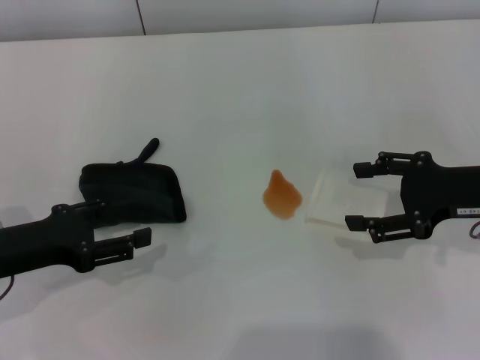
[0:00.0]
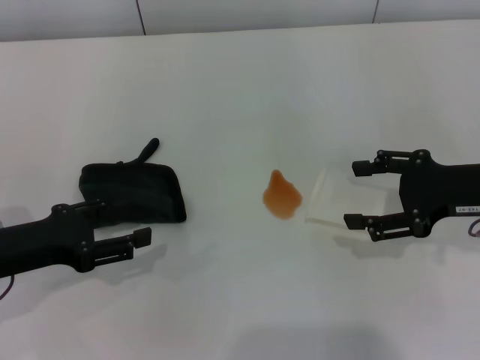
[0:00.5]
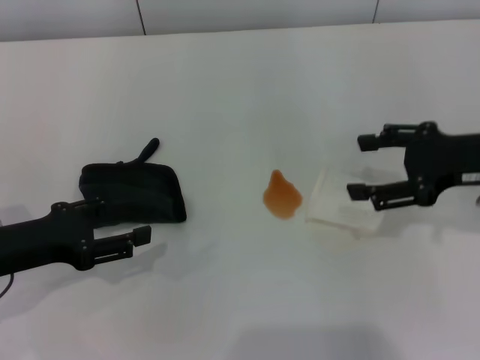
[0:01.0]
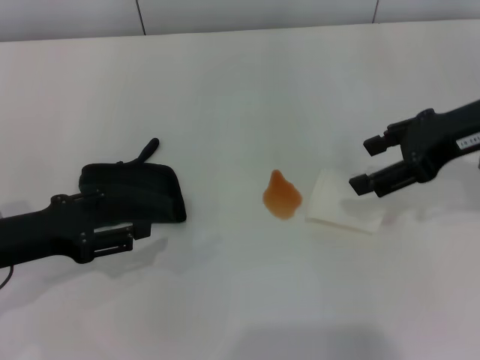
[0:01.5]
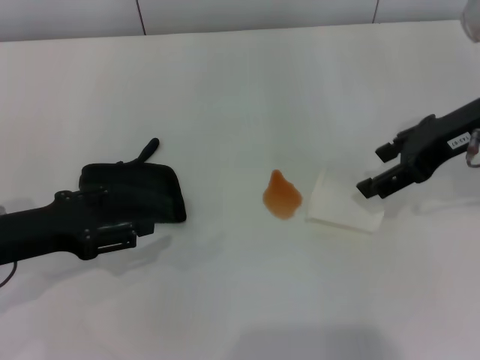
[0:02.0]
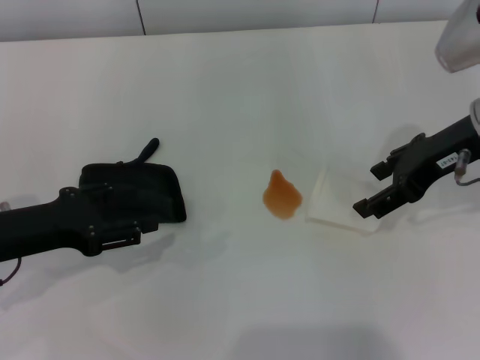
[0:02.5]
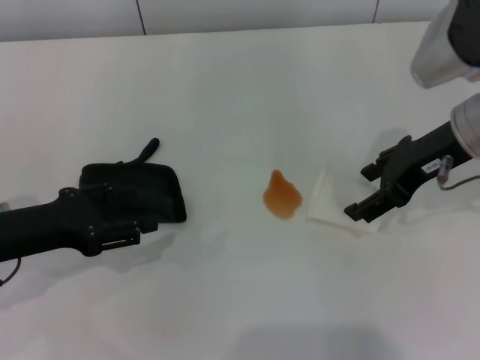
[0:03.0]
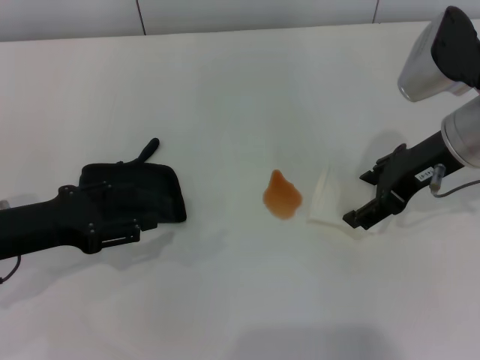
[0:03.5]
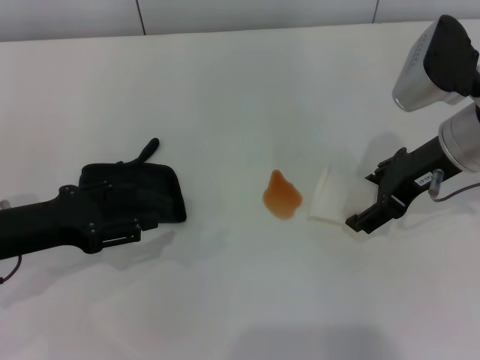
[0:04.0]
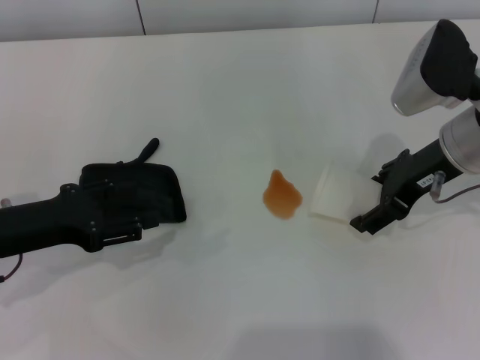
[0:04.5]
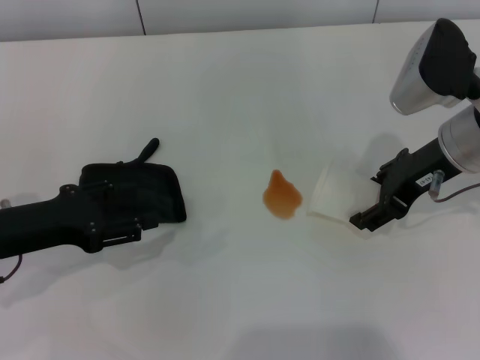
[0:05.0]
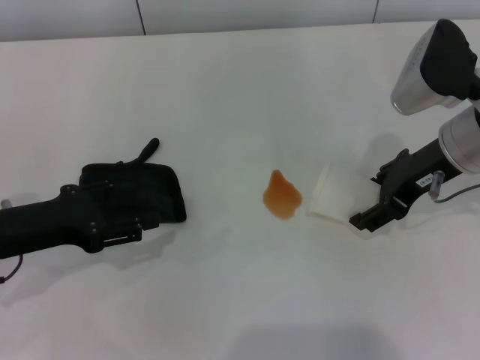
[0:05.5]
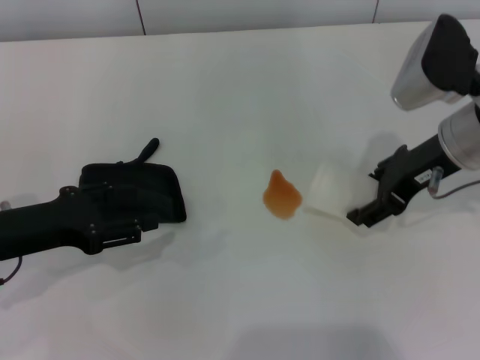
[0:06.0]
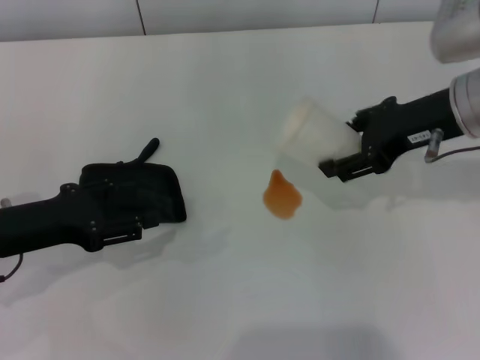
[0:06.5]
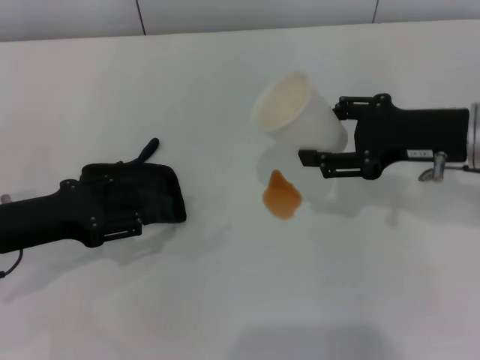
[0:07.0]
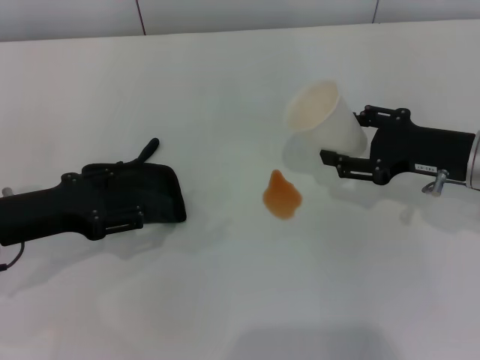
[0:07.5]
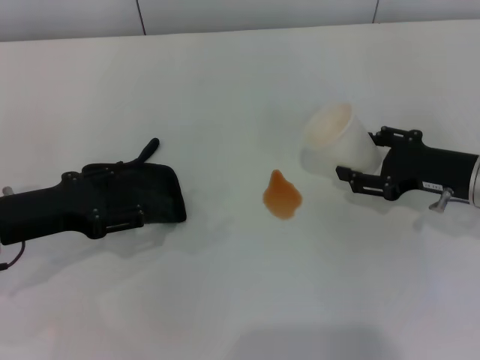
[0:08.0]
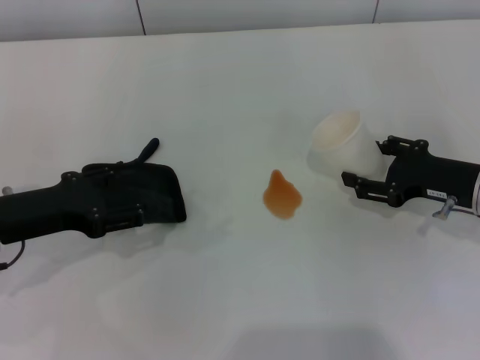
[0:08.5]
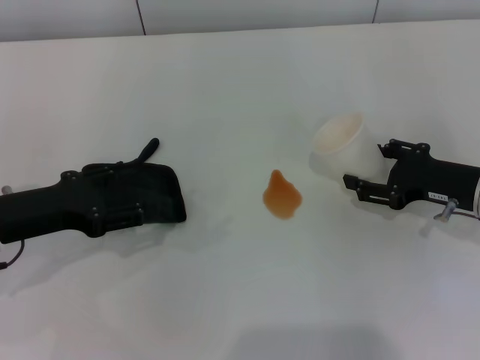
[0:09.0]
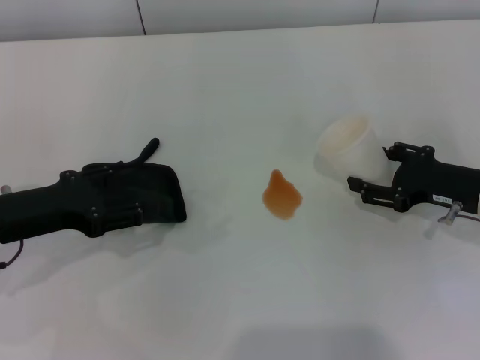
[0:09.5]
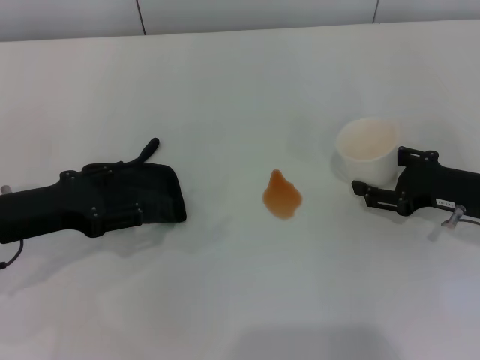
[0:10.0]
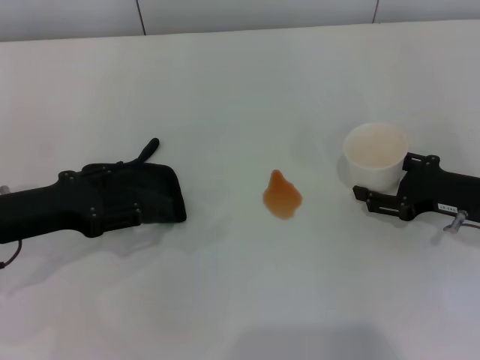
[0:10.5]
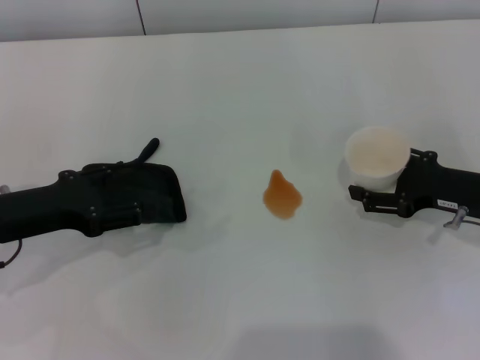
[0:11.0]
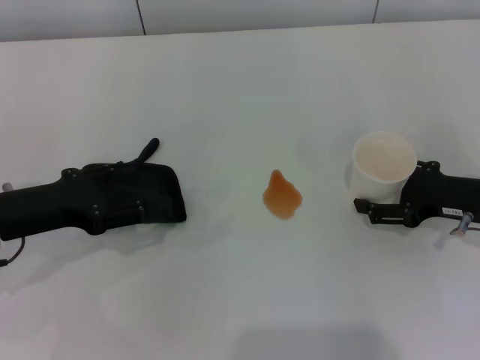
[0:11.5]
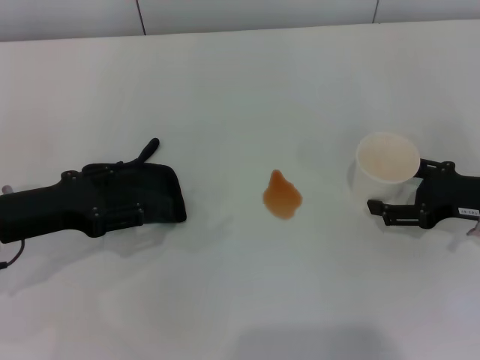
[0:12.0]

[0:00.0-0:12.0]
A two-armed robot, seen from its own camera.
Step, 0:00.0 to 0:05.0: Grasp the paper cup with the right gripper.
0:00.0 to 0:02.0: The right gripper heads upward and forward, covering approximately 10 cm.
0:02.0 to 0:04.0: The right gripper moves about 5 cm.
0:04.0 to 0:06.0: The right gripper closes its fingers.
0:06.0 to 0:08.0: The right gripper moves downward and to the right, about 10 cm.
0:08.0 to 0:10.0: The grippers move only a little.
0:10.0 to 0:12.0: The right gripper opens.

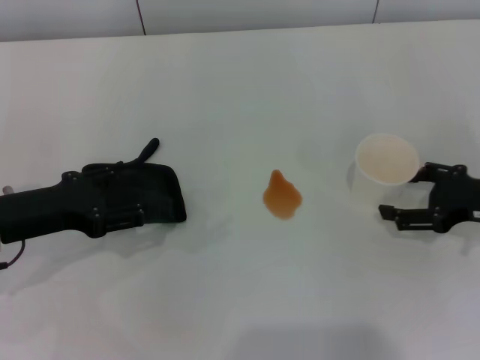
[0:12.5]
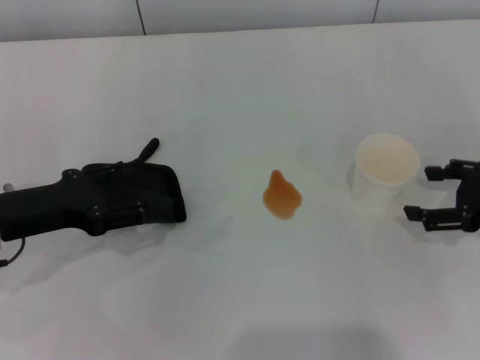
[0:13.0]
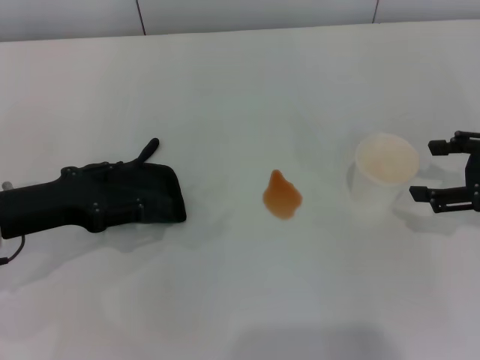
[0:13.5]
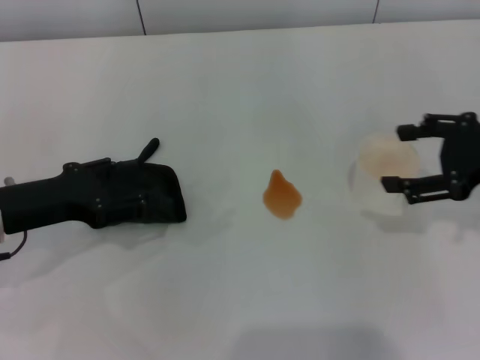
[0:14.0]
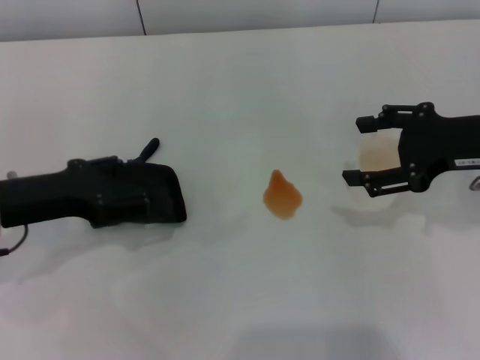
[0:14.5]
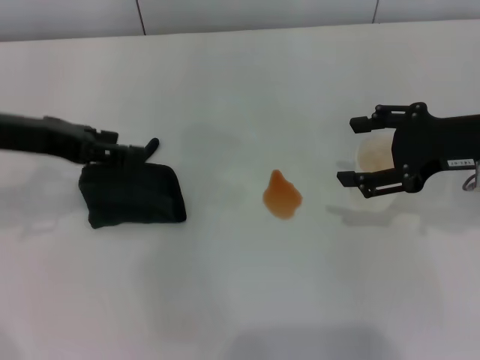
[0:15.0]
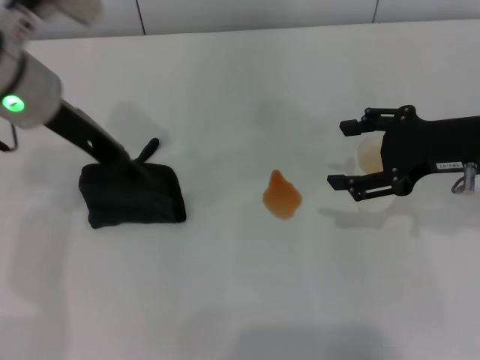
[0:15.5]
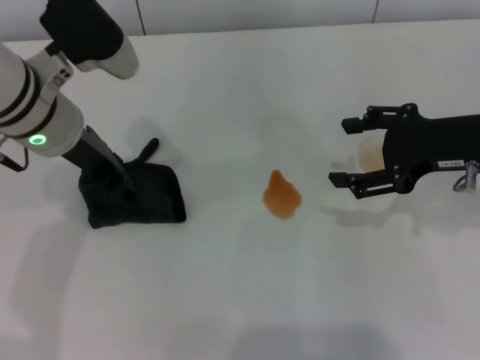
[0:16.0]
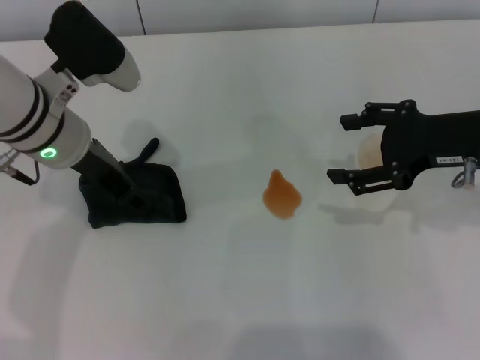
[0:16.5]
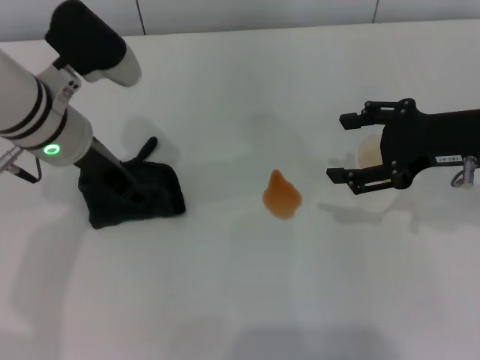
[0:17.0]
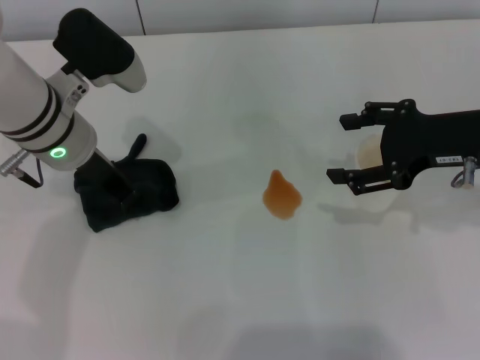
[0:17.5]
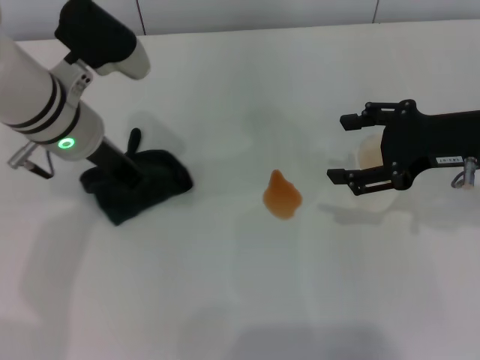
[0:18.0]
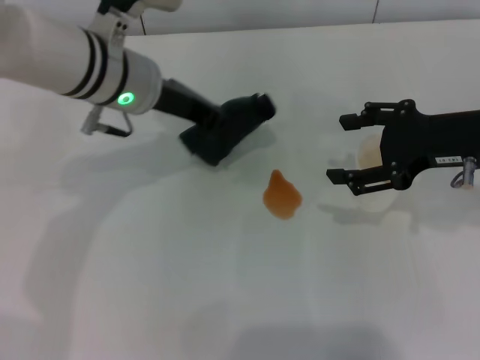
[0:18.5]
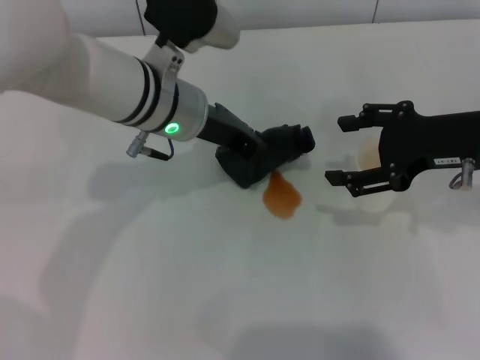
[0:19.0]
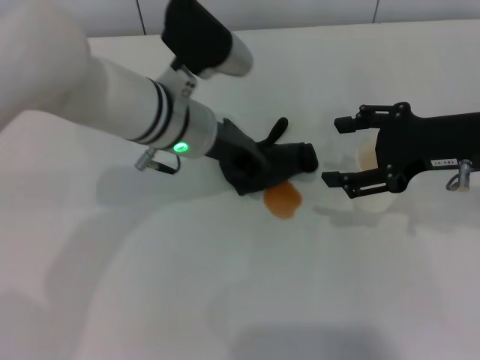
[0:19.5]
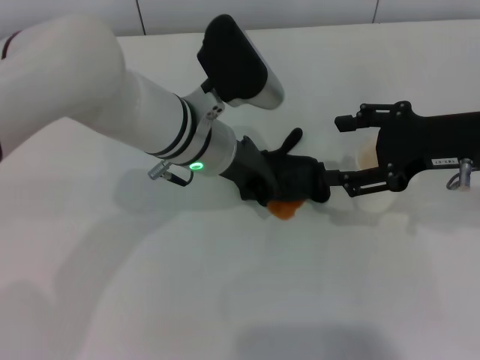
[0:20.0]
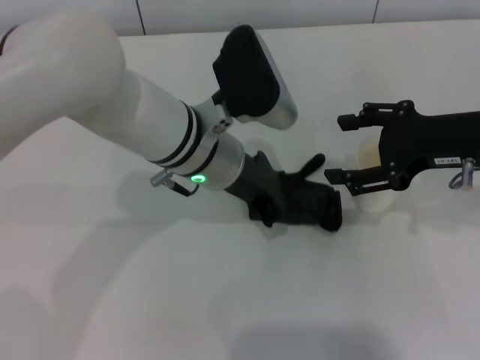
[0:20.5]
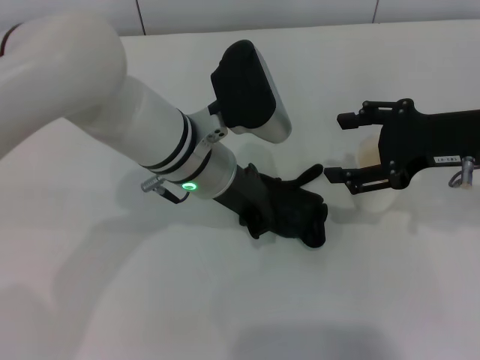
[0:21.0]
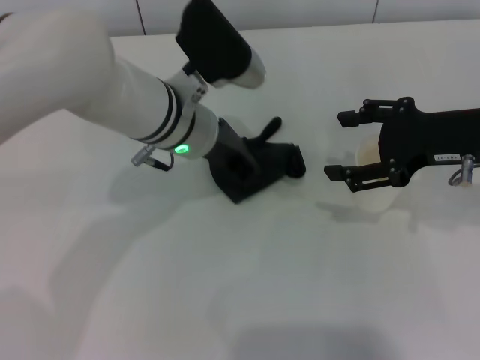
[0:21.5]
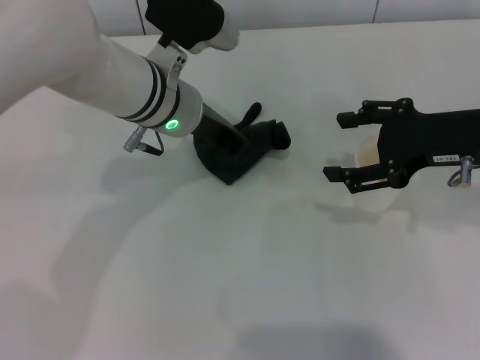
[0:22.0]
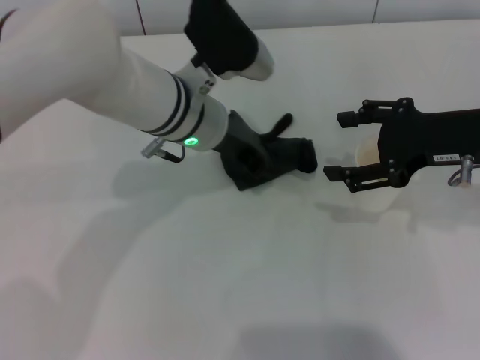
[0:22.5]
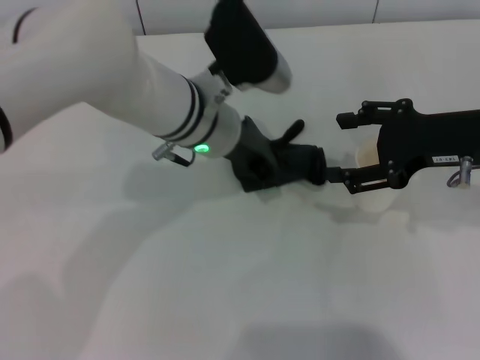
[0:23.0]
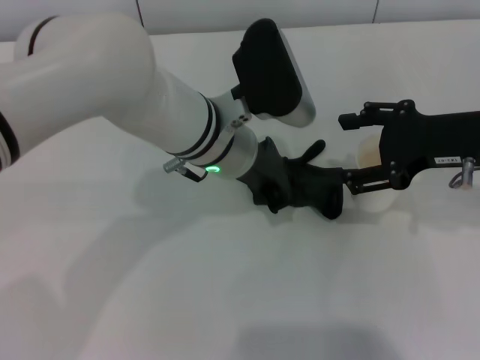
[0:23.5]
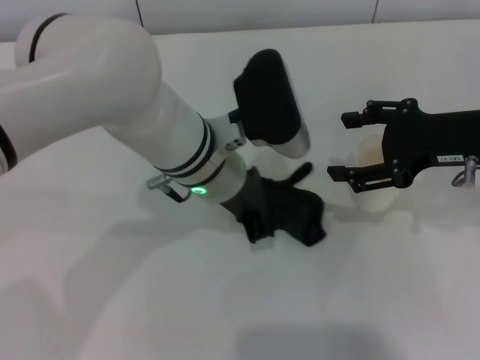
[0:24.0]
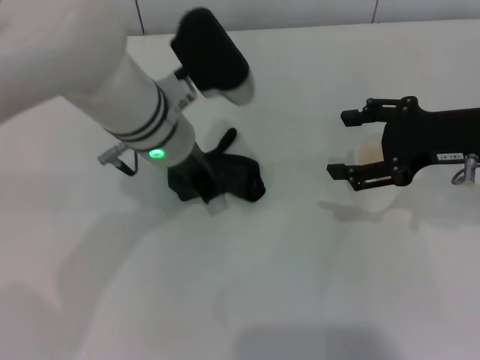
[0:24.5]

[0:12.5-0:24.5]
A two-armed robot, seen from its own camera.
Step, 0:13.5 to 0:17.5: Grasp the rag with the left gripper.
0:12.5 to 0:14.5: The right gripper shifts approximately 10 cm upward.
0:14.5 to 0:16.5: The left gripper moves to the right and forward, roughly 10 cm.
0:16.5 to 0:18.5: The left gripper heads to the right, covering about 5 cm, and closes up.
0:18.5 to 0:20.5: The left gripper goes some 5 cm to the right.

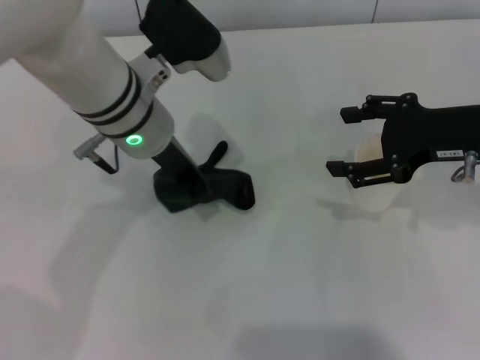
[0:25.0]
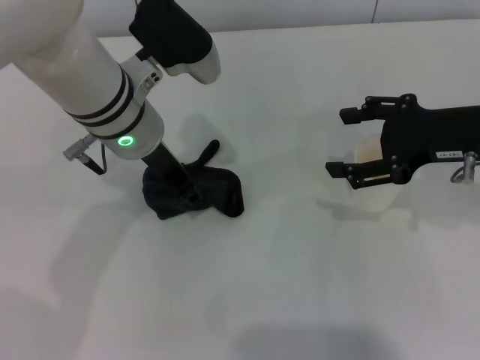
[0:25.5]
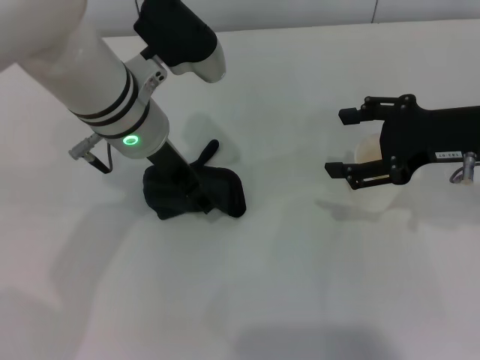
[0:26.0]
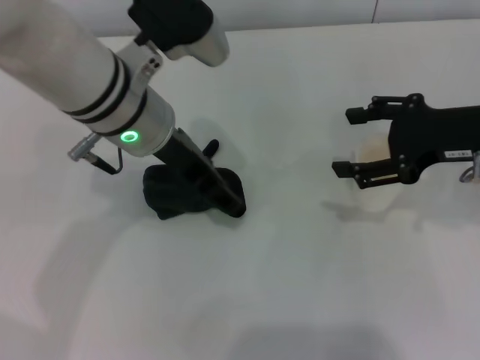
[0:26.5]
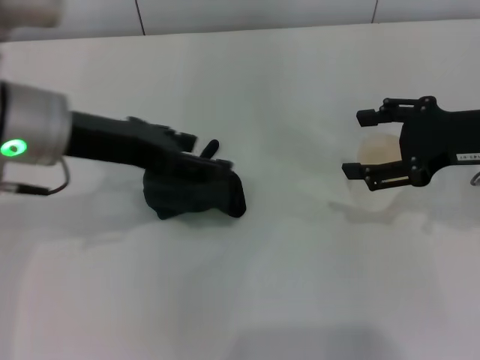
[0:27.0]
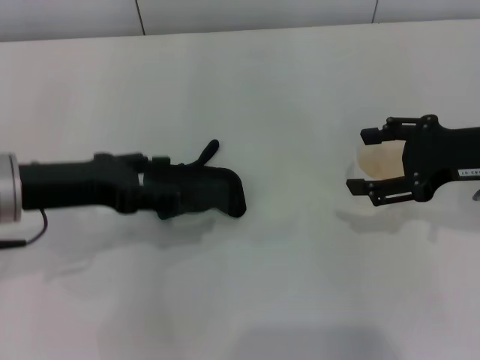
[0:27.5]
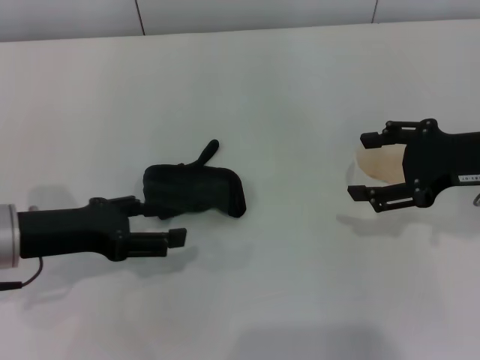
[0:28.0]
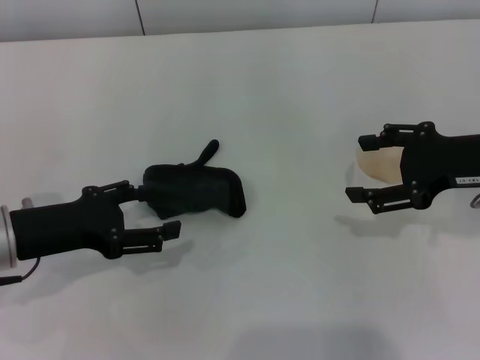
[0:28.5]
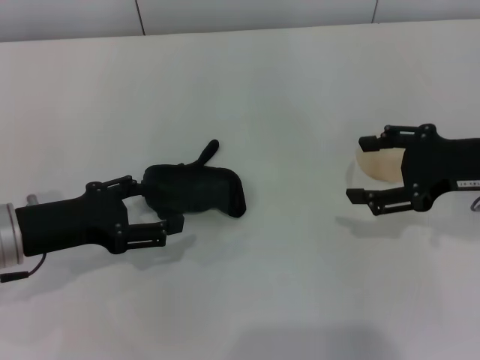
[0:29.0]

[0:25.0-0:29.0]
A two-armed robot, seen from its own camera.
Step, 0:26.0 to 0:27.0: Place the rag on the table with the left gripper.
0:25.0 to 0:27.0: The left gripper travels to the left and backward by roughly 10 cm, and opens.
0:27.0 to 0:29.0: The left gripper goes some 15 cm downward and to the left.
